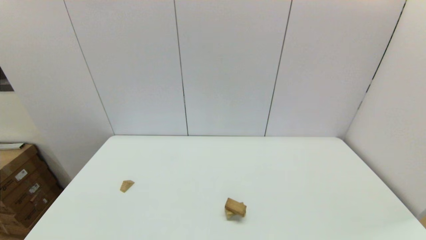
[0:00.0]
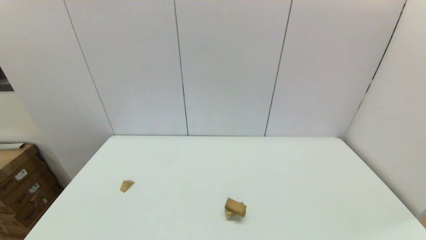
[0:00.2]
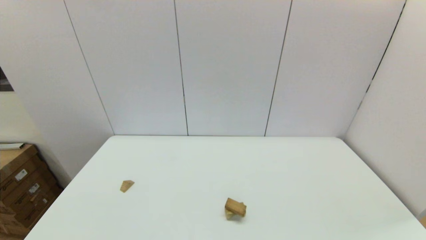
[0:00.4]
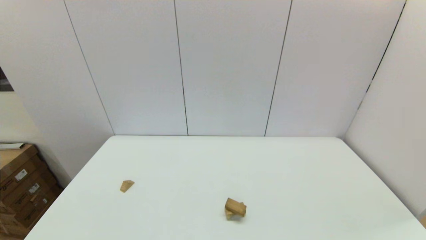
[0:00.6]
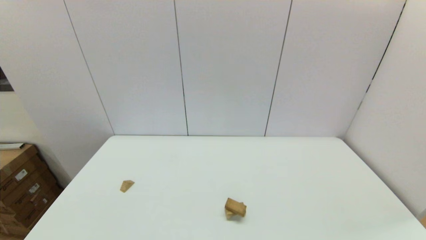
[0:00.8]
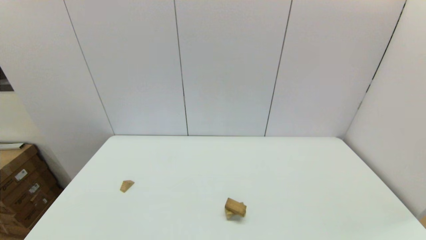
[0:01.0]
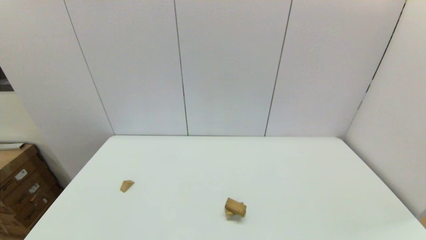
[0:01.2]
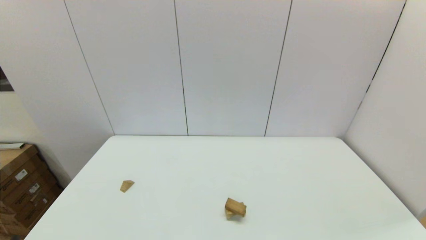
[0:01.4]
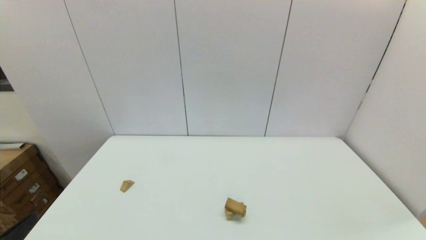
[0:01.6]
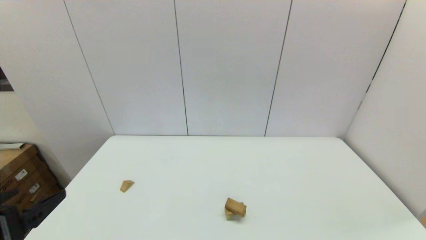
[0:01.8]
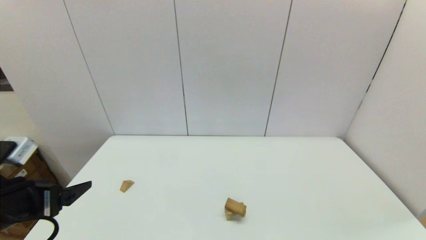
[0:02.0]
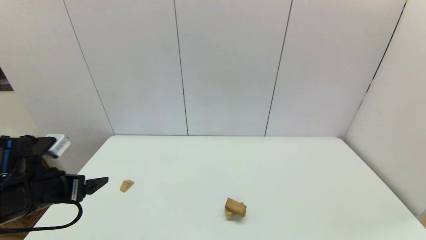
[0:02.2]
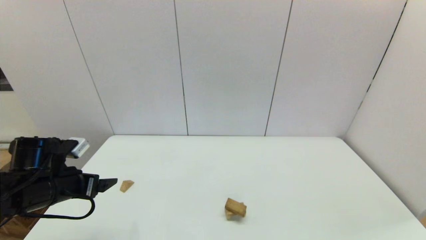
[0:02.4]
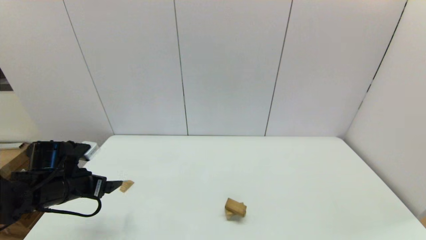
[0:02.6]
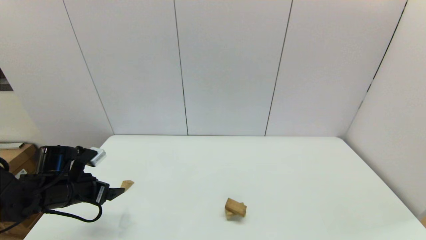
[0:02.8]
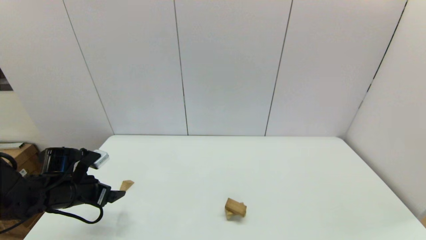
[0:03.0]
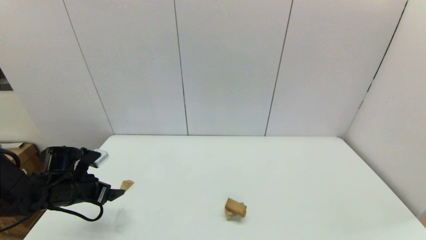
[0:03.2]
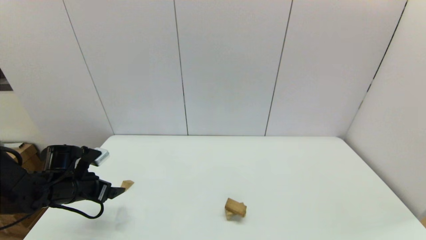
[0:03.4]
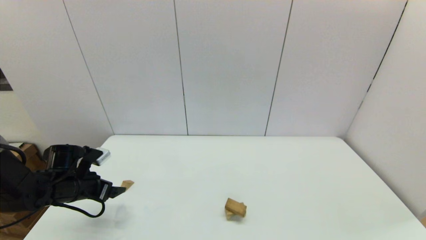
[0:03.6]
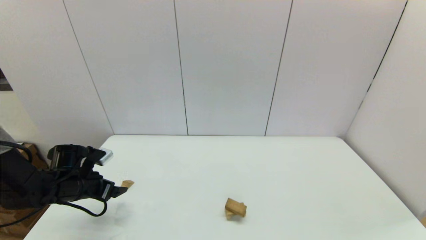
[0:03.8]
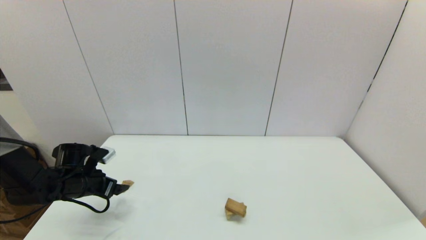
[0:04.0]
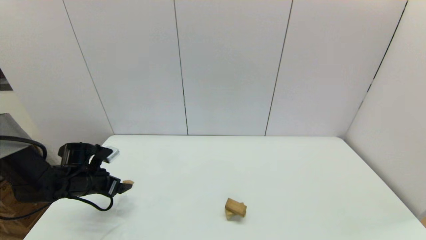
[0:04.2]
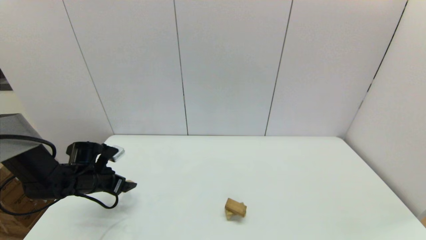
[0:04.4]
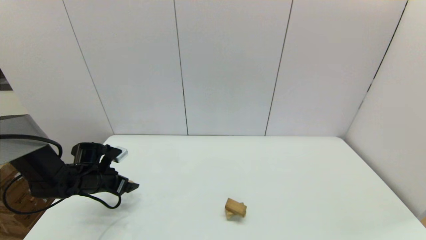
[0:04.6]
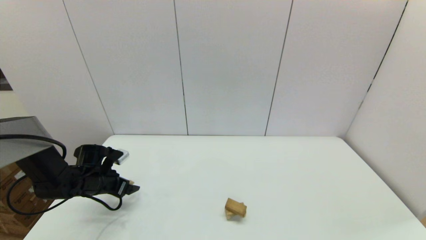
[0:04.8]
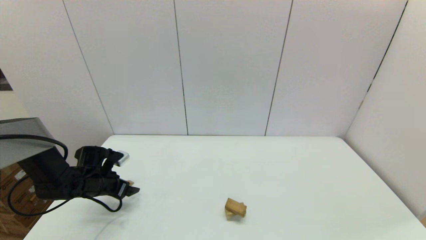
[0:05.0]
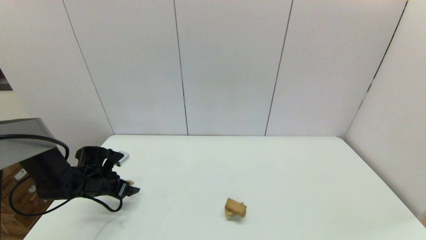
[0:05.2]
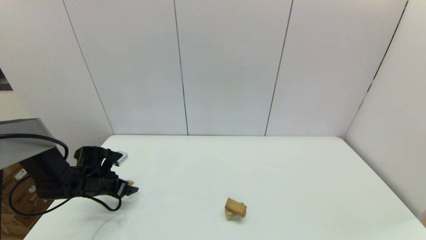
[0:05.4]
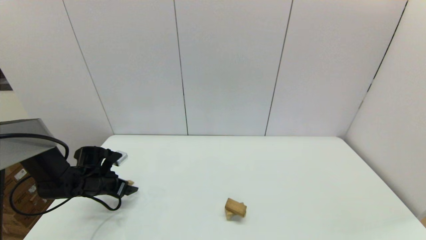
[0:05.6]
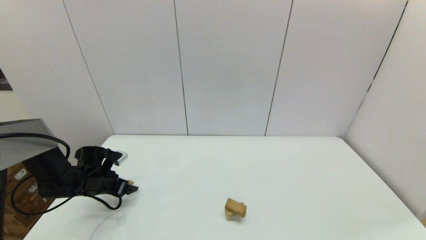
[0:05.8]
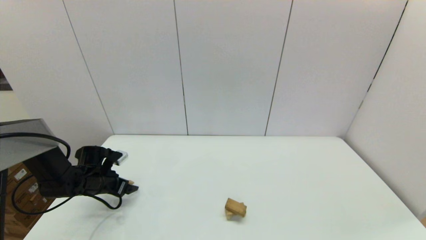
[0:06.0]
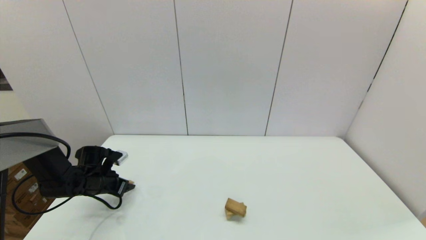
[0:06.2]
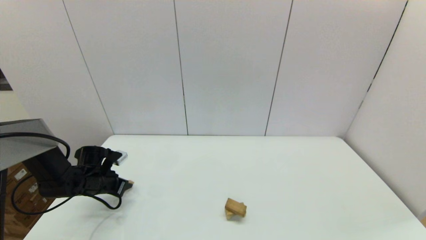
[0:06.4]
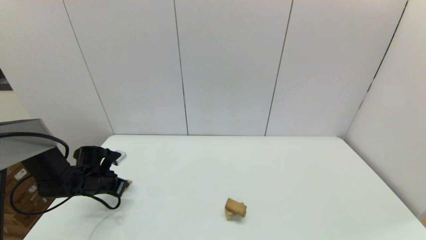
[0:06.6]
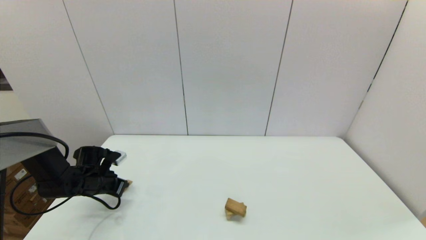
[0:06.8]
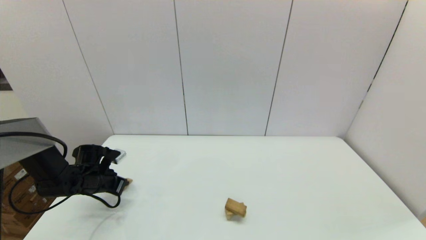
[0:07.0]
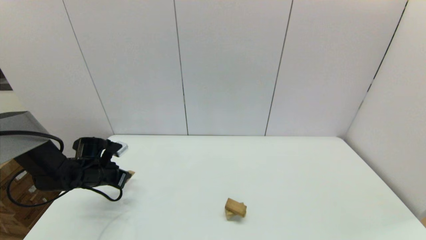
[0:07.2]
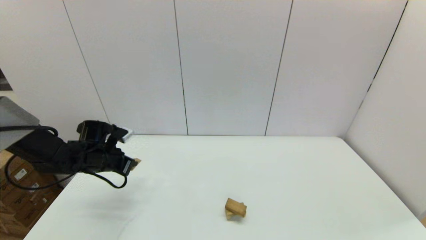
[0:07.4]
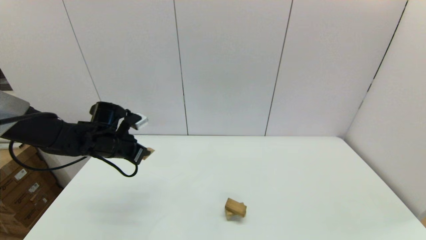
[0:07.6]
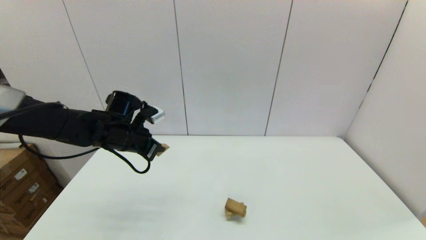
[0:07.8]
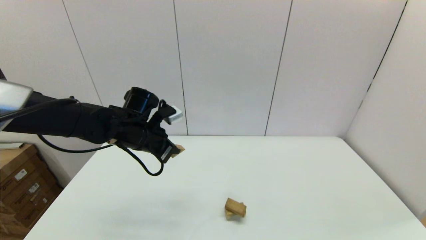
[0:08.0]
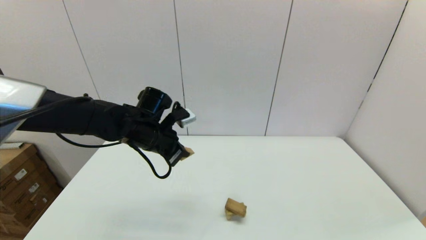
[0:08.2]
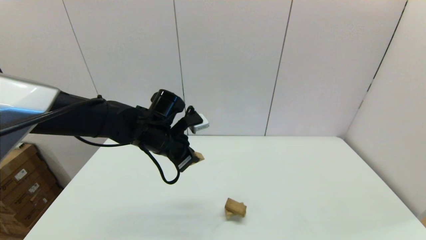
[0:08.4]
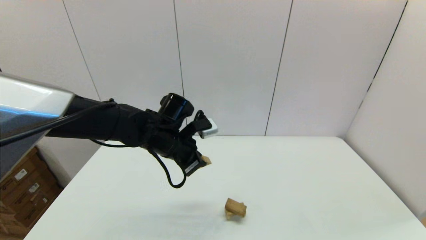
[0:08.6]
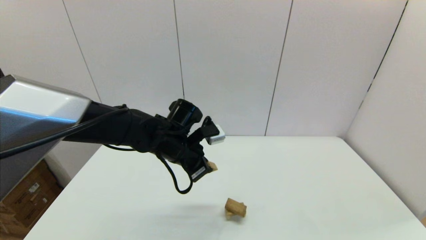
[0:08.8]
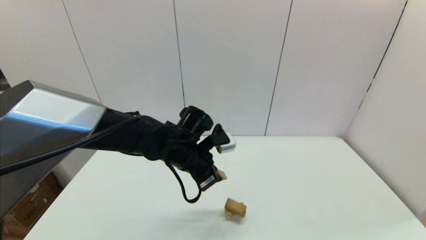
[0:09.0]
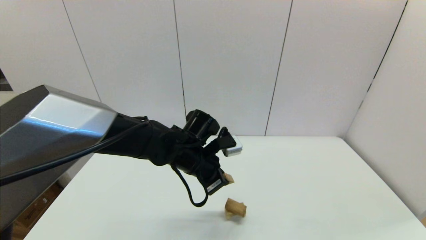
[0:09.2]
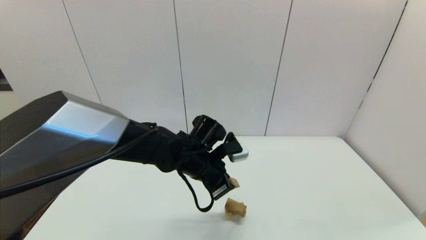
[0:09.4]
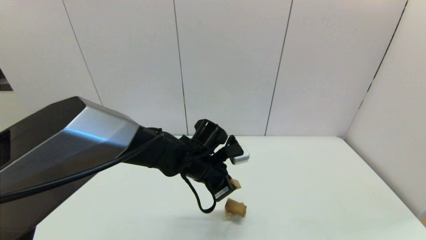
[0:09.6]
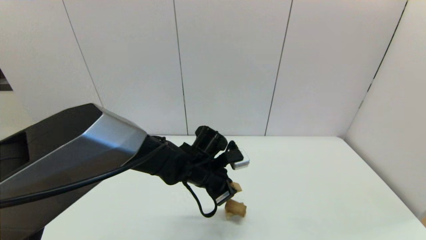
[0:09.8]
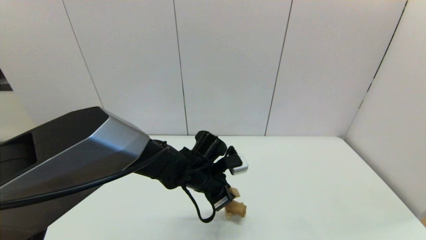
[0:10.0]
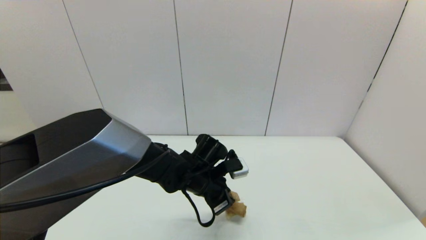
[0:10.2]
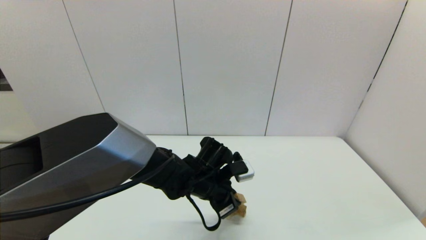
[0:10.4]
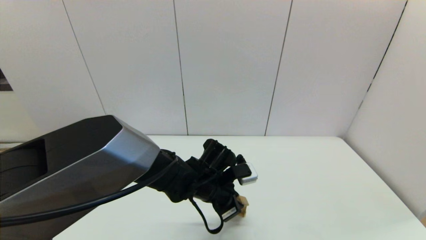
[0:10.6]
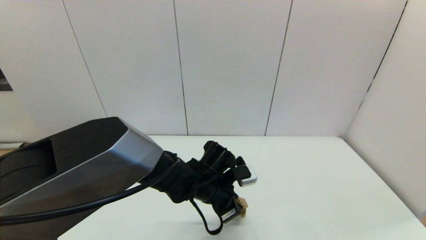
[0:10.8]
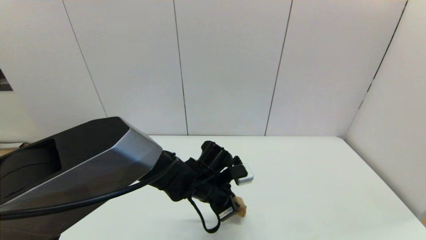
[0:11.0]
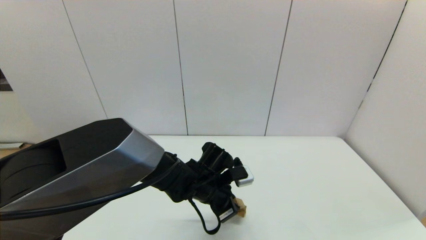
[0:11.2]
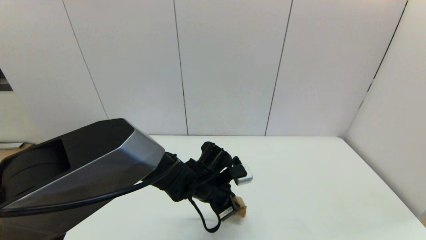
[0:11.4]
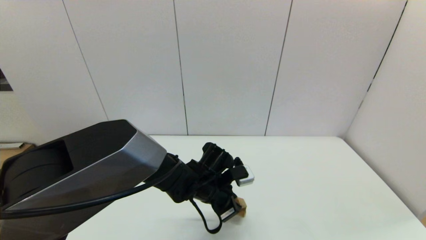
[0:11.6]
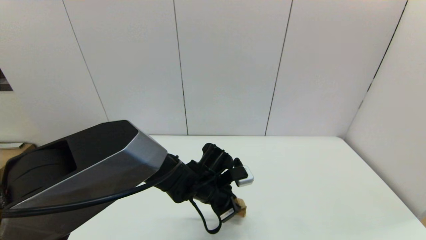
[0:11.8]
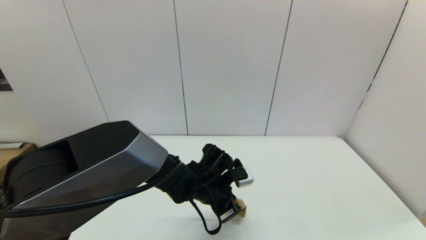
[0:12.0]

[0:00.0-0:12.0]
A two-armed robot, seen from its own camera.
Task of the whole recording: place the arched building blocks in the center of the table, set up the rectangular building blocks, and then set up the triangular building blocks.
Step, 0:00.0 to 0:06.4: Grasp the triangle-shaped block with the left gripper.
0:01.6 to 0:03.0: The left gripper travels forward and downward by about 25 cm.
0:03.0 to 0:04.4: The left gripper travels forward by roughly 5 cm.
0:04.4 to 0:06.0: The grippers move only a little.
0:06.0 to 0:07.6: The left gripper moves upward and to the right, approximately 15 cm, and closes its fingers.
0:07.6 to 0:09.0: The left gripper travels to the right by some 20 cm.
0:09.0 to 0:10.4: The left gripper shifts approximately 5 cm downward.
0:10.4 to 0:12.0: The grippers stay close to where they were, moving slightly.

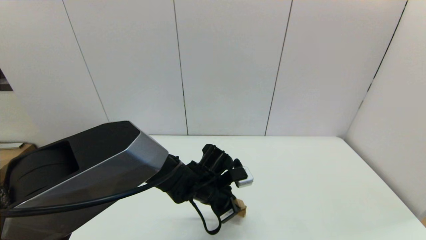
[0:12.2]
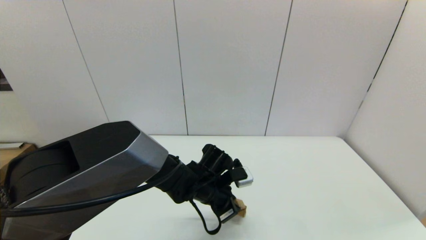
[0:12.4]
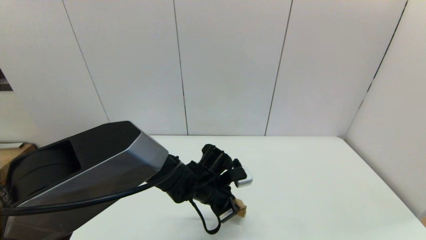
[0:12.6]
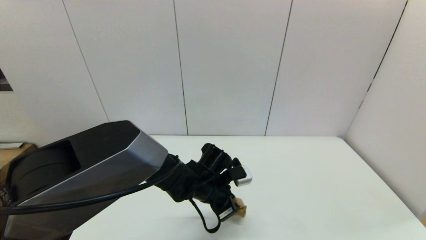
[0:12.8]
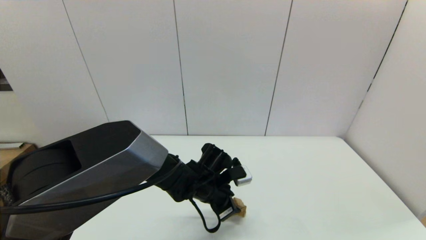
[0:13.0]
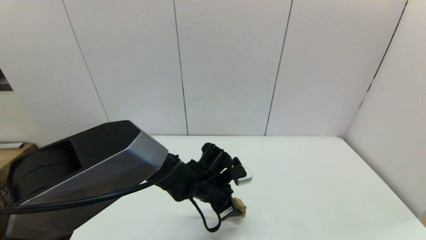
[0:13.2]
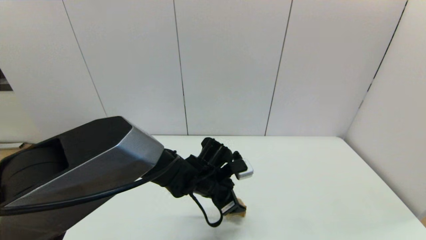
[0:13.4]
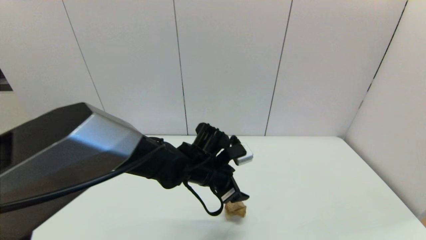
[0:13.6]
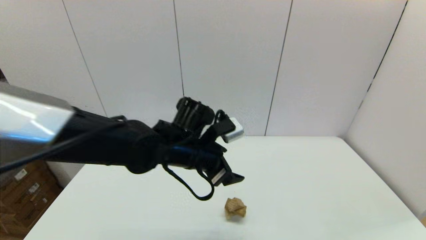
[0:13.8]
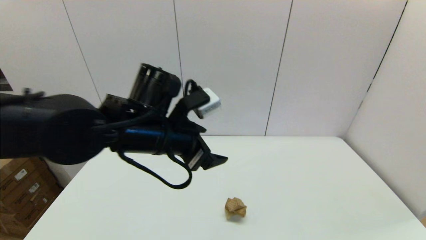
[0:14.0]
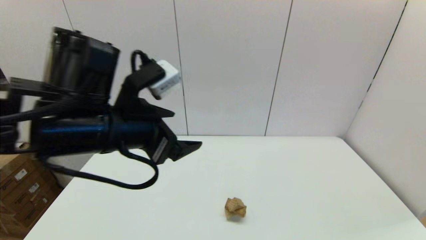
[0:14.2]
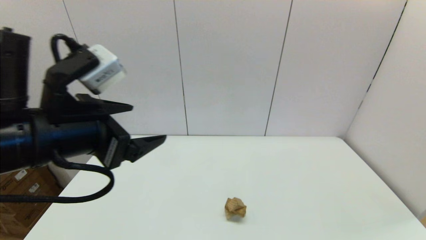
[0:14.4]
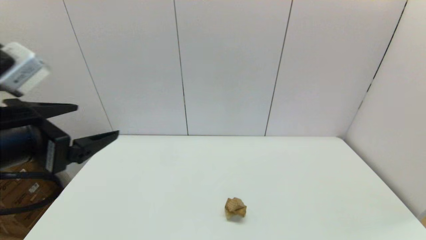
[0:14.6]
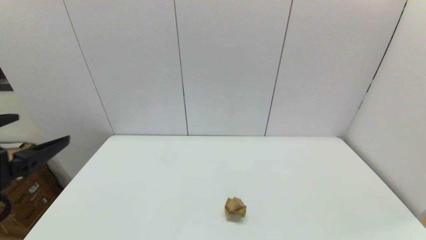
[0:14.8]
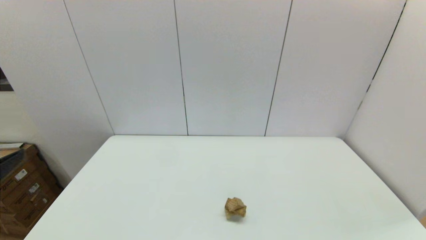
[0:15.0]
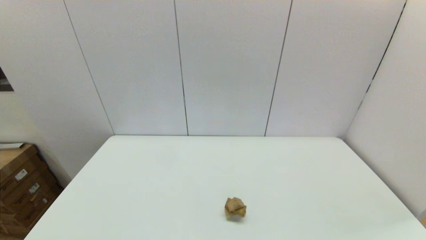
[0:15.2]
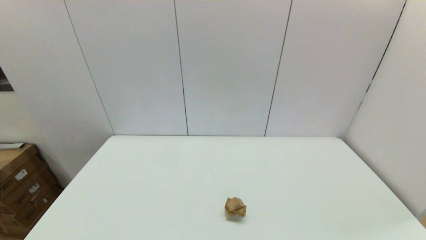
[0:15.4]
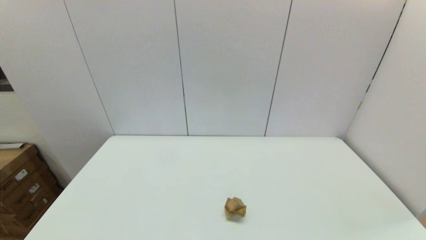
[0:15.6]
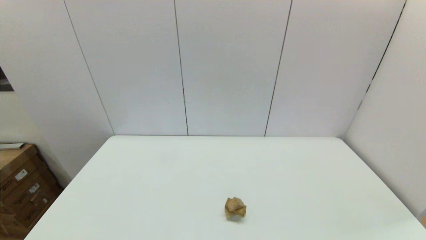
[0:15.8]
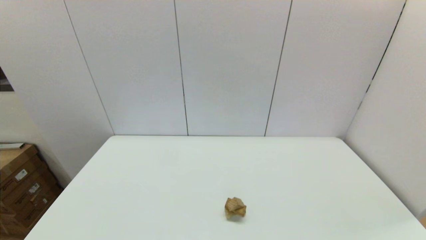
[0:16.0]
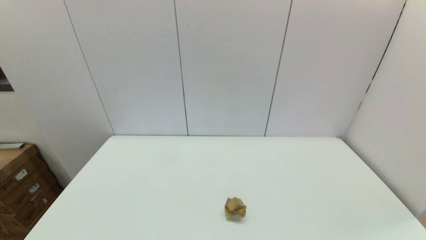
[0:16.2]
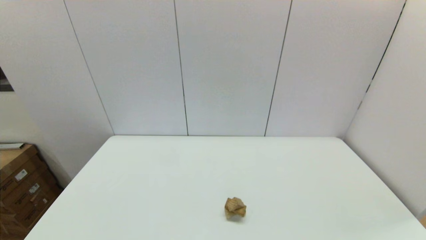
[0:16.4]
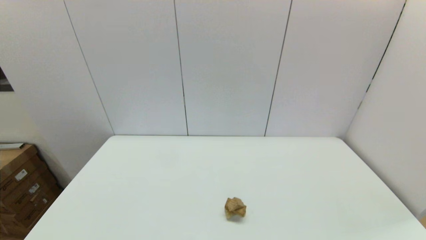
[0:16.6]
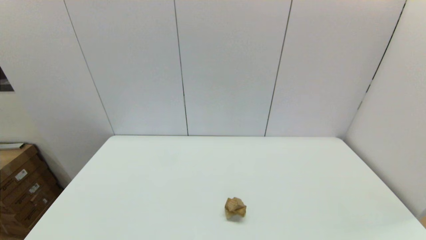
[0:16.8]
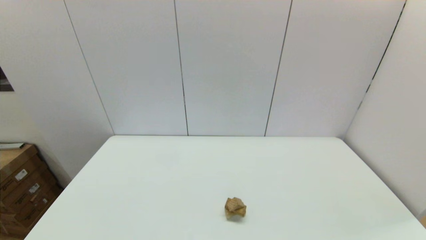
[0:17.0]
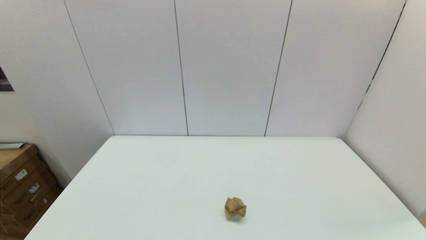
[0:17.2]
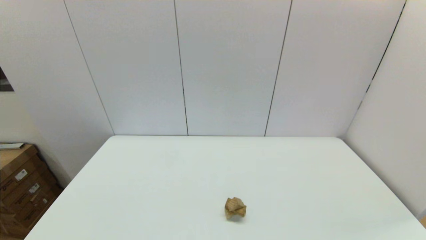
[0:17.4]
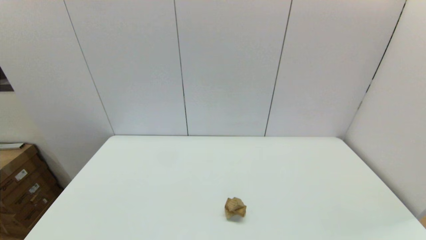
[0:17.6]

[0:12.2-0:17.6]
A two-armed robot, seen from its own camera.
Task of the whole recording: place the arched building blocks in the center of the table, set up the rectangular building blocks, and then set up the triangular building blocks.
0:12.2 to 0:13.6: The left gripper shifts about 5 cm upward, and opens up.
0:13.6 to 0:15.0: The left gripper heads to the left, backward and upward, covering some 40 cm.
